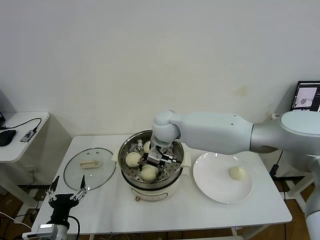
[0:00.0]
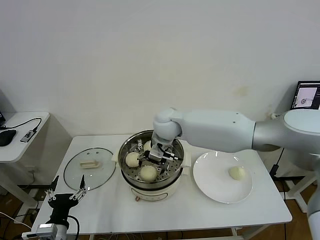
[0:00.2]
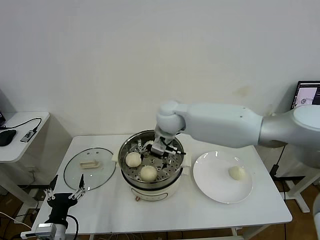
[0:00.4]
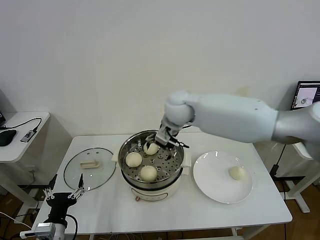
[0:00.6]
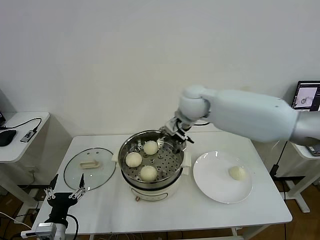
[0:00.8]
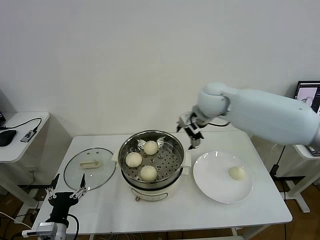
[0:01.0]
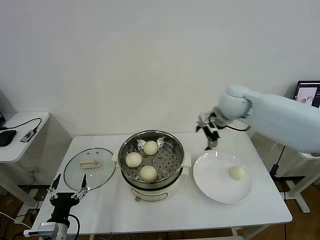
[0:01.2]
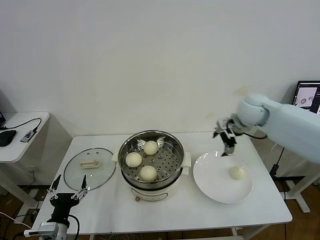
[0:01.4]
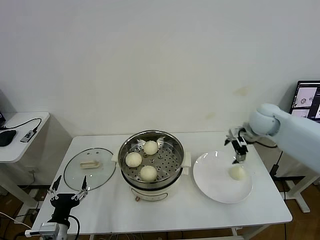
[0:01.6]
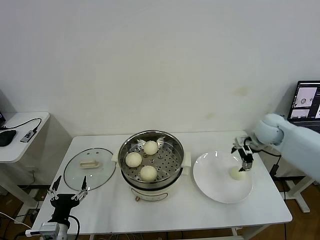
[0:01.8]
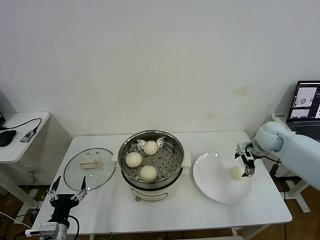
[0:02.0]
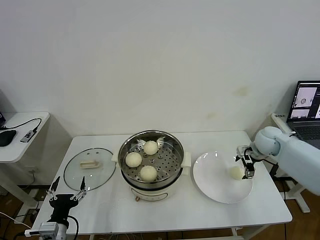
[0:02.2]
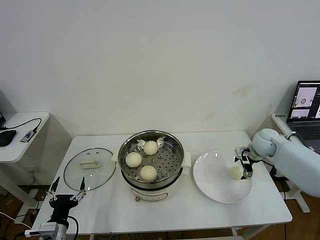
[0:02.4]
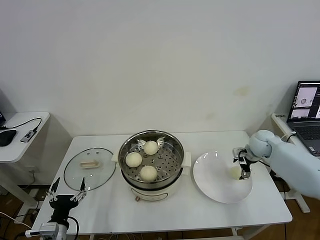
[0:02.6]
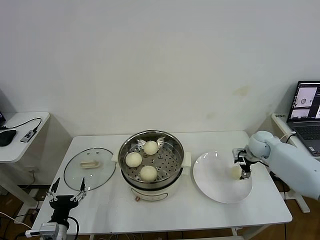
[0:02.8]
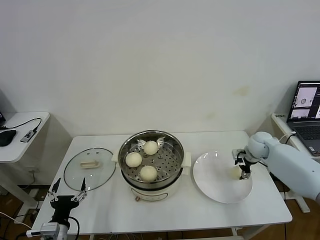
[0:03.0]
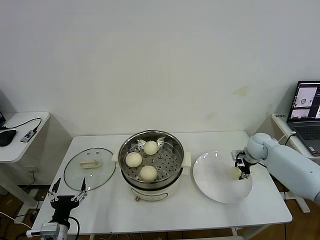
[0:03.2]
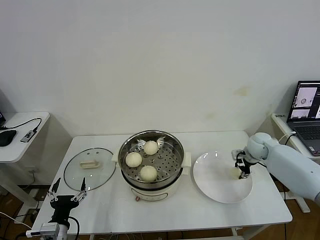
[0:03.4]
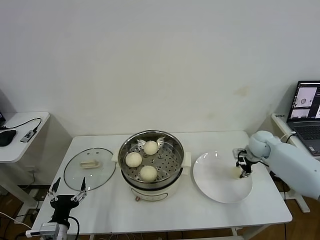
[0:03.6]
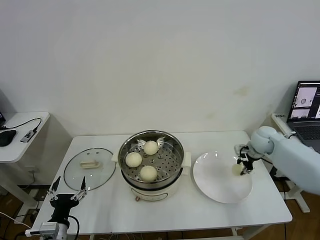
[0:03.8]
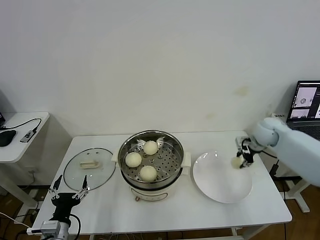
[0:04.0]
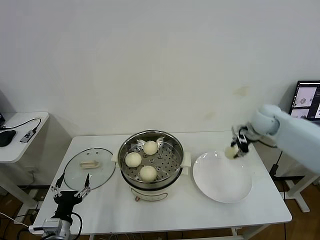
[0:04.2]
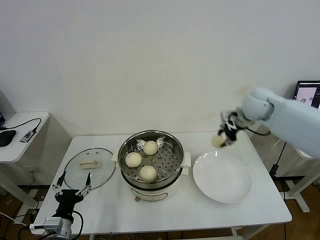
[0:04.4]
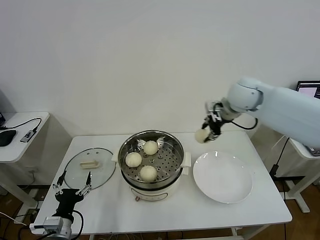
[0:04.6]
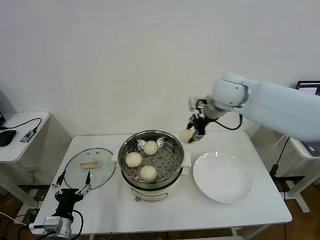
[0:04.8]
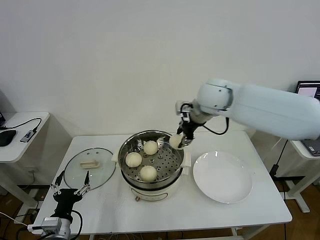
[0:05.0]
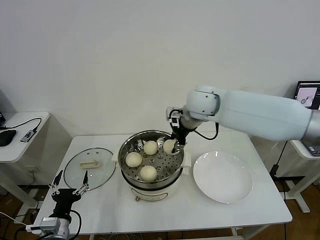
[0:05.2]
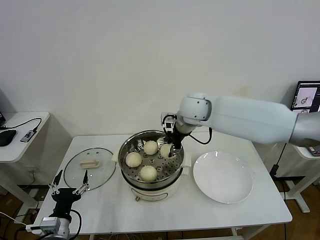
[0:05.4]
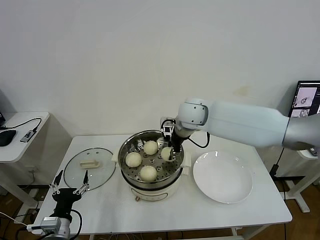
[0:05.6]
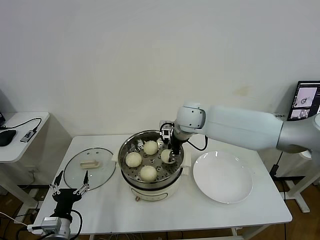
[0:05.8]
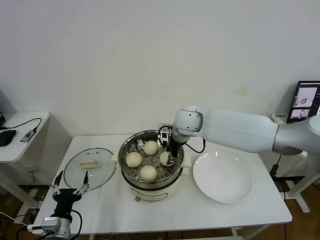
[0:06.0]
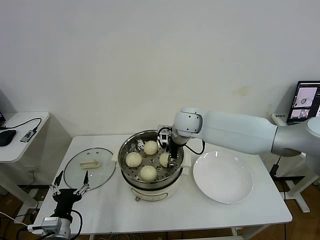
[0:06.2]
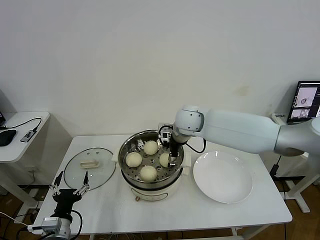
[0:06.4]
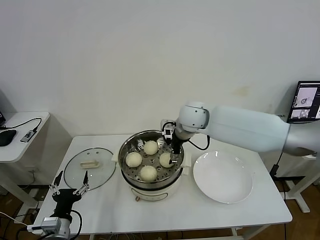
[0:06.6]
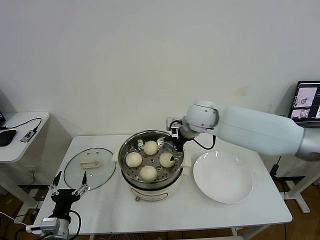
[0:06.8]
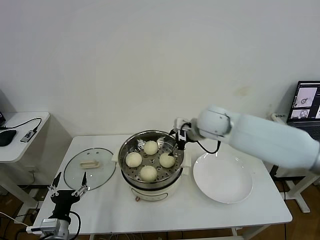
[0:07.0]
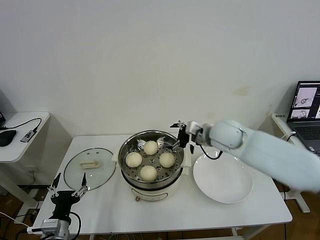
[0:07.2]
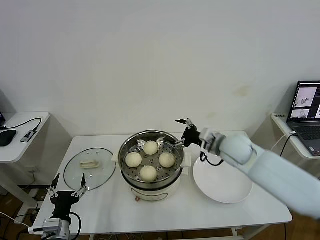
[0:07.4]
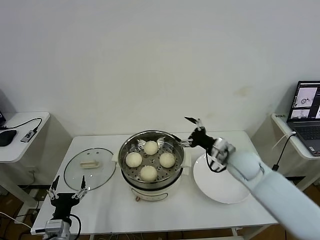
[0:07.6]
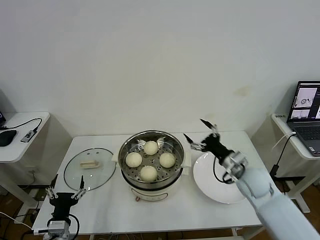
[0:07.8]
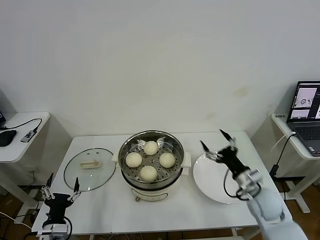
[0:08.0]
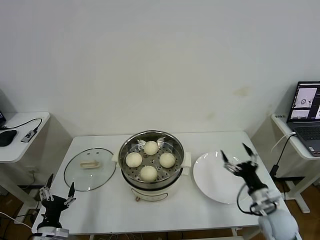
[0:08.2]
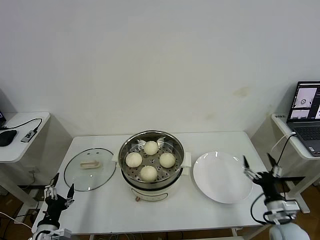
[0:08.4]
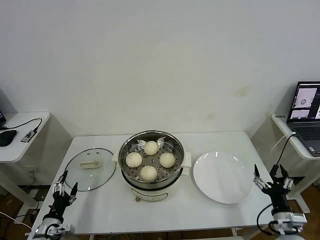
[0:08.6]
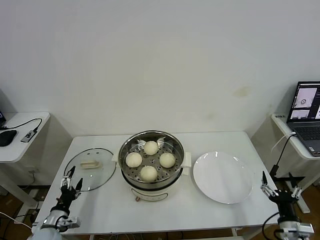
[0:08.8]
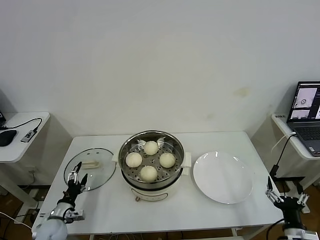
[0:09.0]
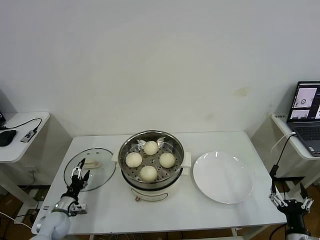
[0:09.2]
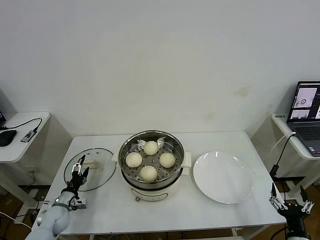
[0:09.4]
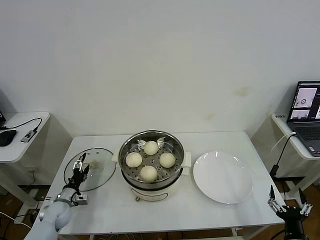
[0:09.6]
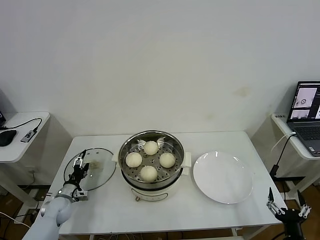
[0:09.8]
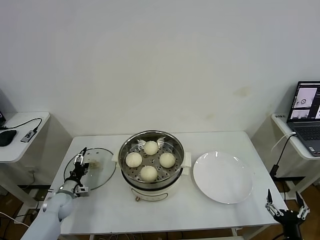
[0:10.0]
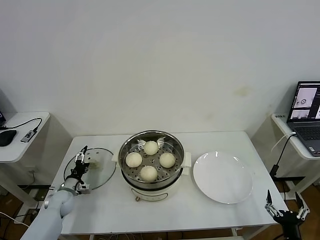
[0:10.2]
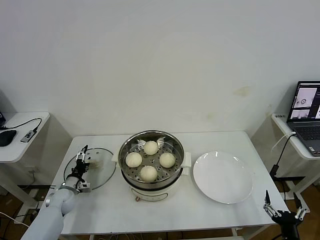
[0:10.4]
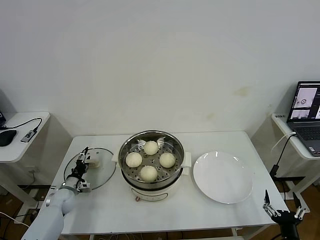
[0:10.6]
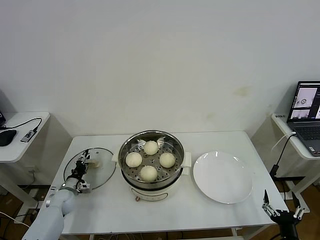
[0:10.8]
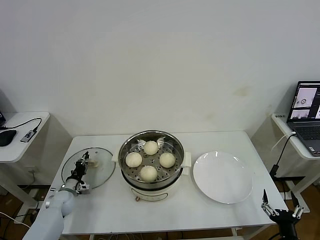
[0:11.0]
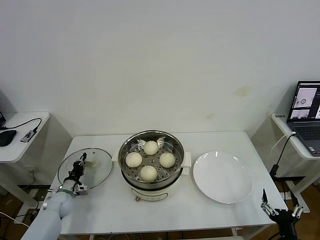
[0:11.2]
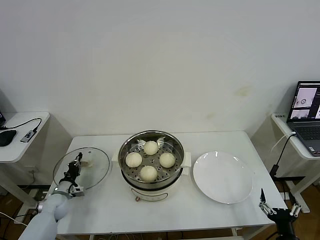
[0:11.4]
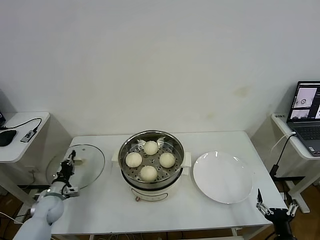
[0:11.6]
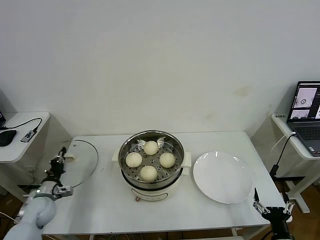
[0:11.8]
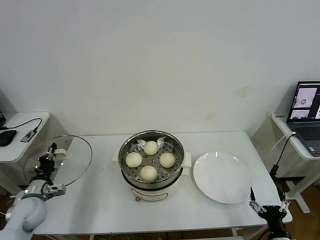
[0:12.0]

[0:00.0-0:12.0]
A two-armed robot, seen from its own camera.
Task of the whole recording: take steamed baozi put them in steamer then cover it.
Step, 0:00.6 to 0:03.6: Grasp the baozi in the plate with right gripper.
Step, 0:04.0 to 0:06.6: Place the baozi on the steamer with right gripper.
Step, 0:06.8 to 0:11.2: Grasp the pot lid with left gripper.
0:00.0 to 0:01.6: The right gripper goes some 35 cm to the right.
0:01.6 to 0:03.0: The right gripper travels downward by approximately 15 cm.
0:03.0 to 0:04.4: The right gripper moves upward and to the left, roughly 20 cm, and closes its fingers.
0:04.4 to 0:06.0: The right gripper shifts about 20 cm to the left.
0:06.0 to 0:07.6: The right gripper heads to the right, backward and downward, covering some 25 cm, and opens its fingers.
0:07.6 to 0:09.0: The right gripper shifts approximately 30 cm backward, downward and to the right; the left gripper travels forward, downward and to the left by some 15 cm.
0:09.0 to 0:10.4: The left gripper travels forward by roughly 15 cm.
0:10.4 to 0:12.0: The left gripper is displaced upward and backward by about 15 cm, and closes its fingers.

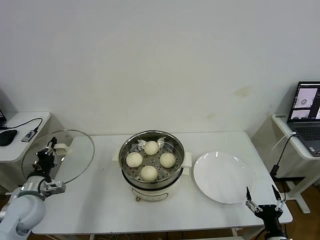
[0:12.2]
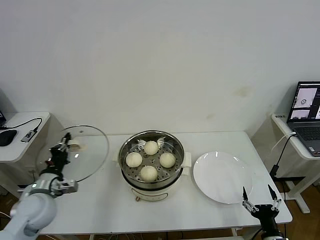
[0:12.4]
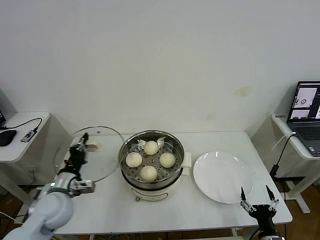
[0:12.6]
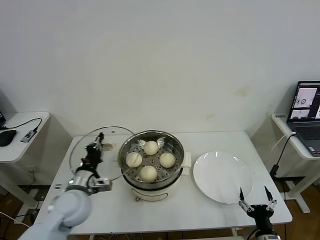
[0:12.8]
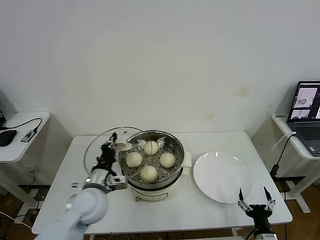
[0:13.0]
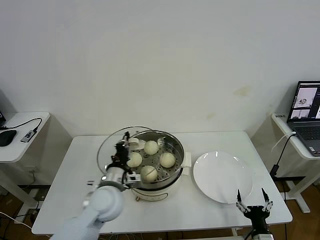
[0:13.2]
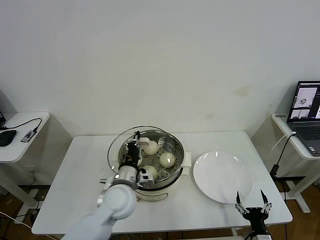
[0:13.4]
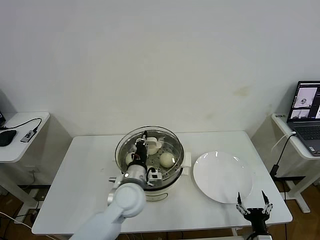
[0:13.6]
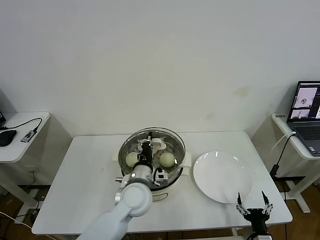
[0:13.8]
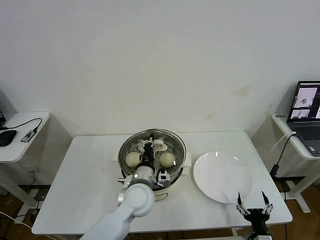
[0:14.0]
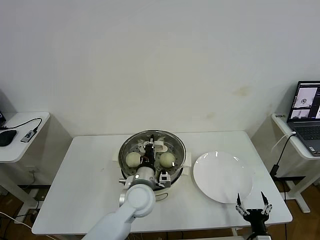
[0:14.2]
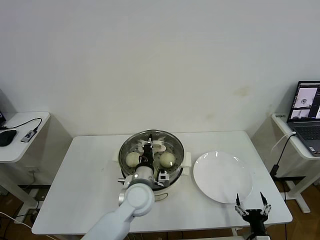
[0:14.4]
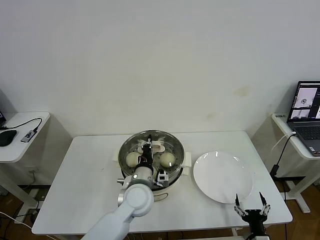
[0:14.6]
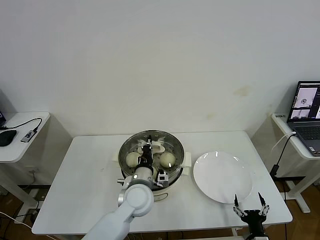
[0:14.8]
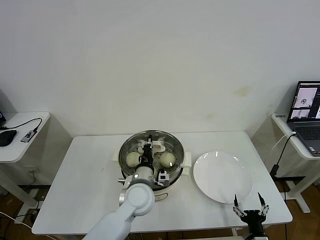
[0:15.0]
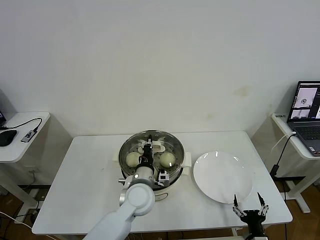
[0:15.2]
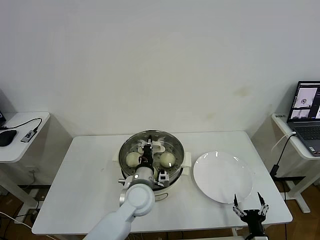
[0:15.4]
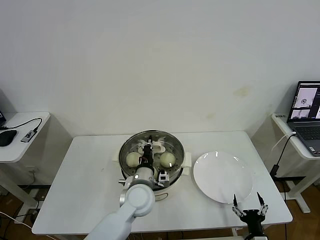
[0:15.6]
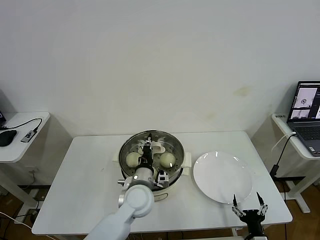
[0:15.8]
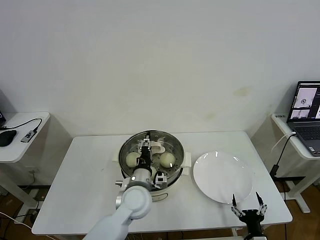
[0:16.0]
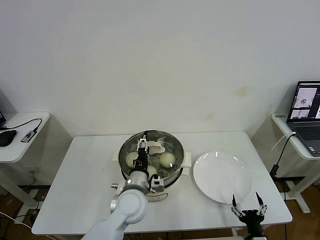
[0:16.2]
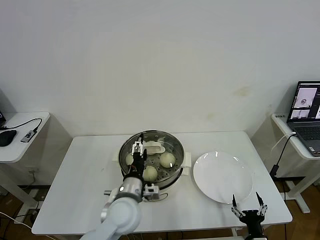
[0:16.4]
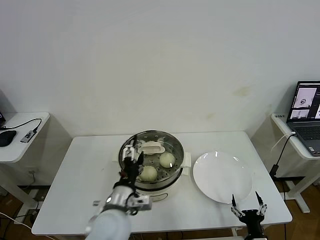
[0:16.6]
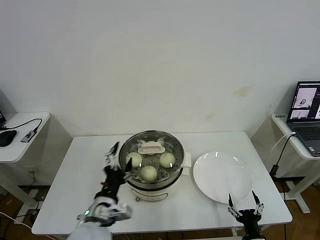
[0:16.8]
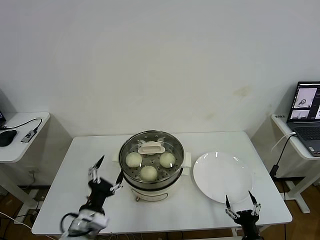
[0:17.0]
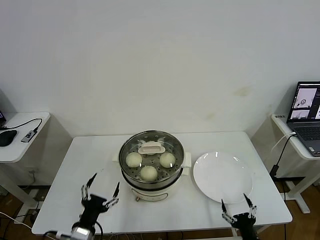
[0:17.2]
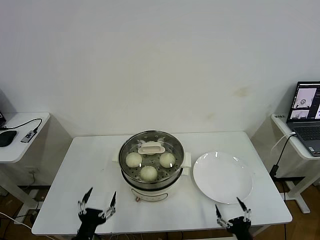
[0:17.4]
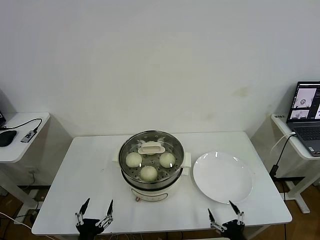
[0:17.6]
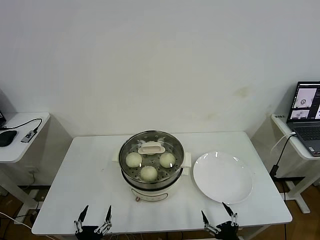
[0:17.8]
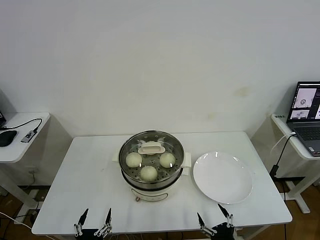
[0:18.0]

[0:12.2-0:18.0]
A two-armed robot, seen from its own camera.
Task of the whole recording: take steamed baozi put them in steamer then cover it.
Step, 0:12.2 to 0:16.4: Place the pot lid on the steamer with left gripper.
0:12.2 to 0:13.6: The left gripper travels to the right by some 30 cm. Meanwhile the right gripper changes place by approximately 5 cm.
0:13.6 to 0:15.0: There are only small adjustments of the grippers.
0:15.0 to 0:16.6: The left gripper is displaced backward by about 10 cm, and opens up.
0:16.6 to 0:18.0: The right gripper moves to the left, some 5 cm, while the left gripper heads backward, downward and to the left, covering approximately 25 cm.

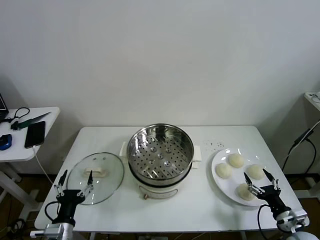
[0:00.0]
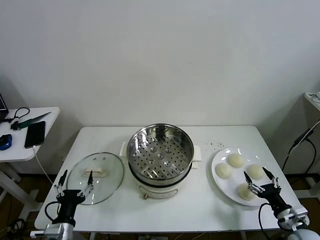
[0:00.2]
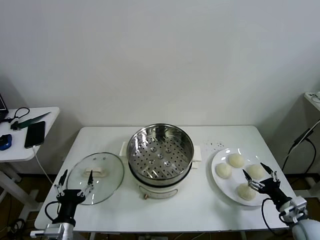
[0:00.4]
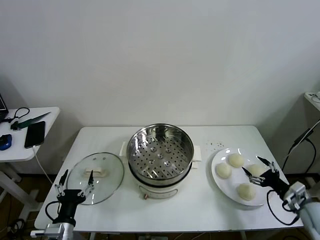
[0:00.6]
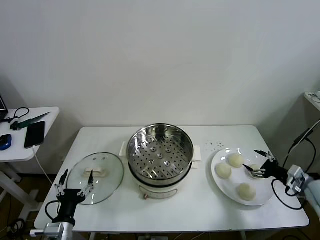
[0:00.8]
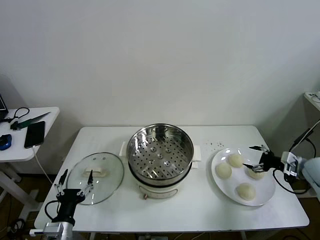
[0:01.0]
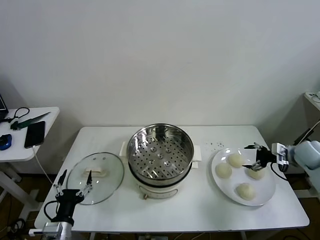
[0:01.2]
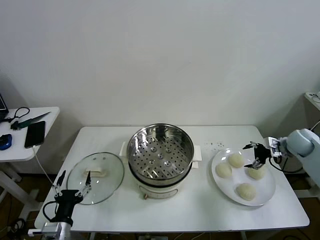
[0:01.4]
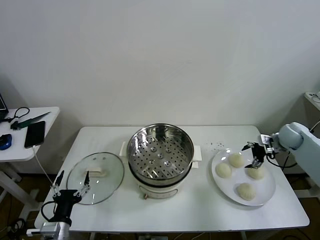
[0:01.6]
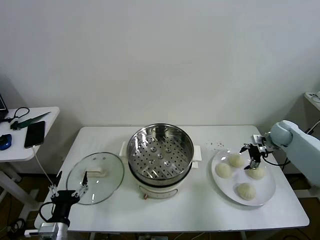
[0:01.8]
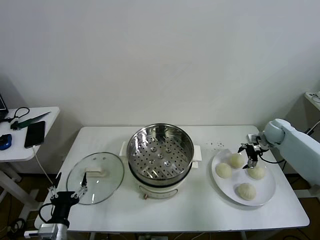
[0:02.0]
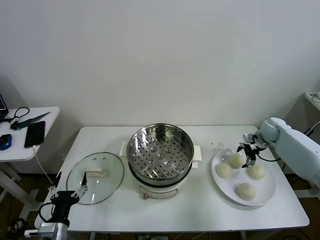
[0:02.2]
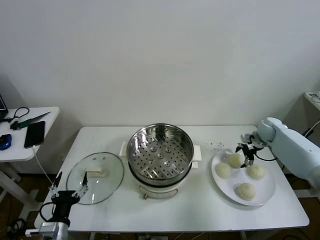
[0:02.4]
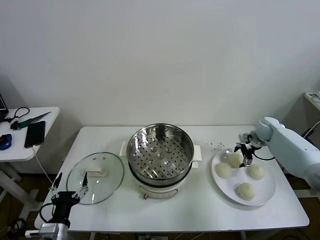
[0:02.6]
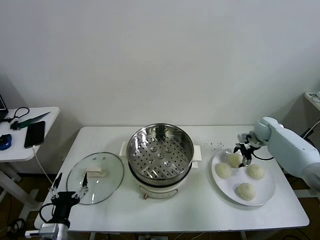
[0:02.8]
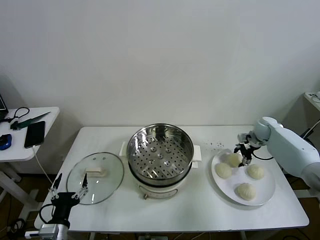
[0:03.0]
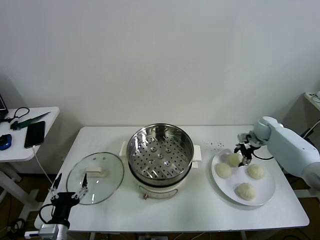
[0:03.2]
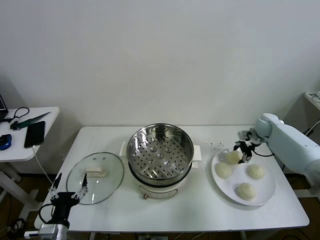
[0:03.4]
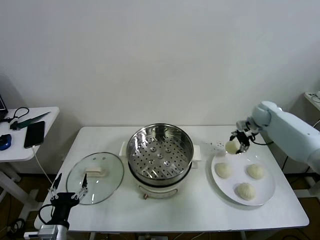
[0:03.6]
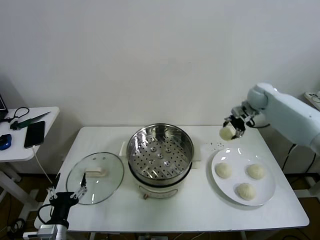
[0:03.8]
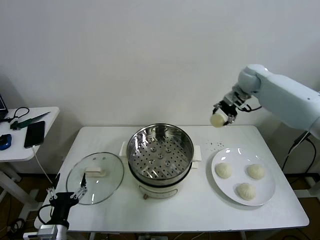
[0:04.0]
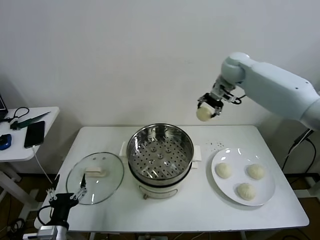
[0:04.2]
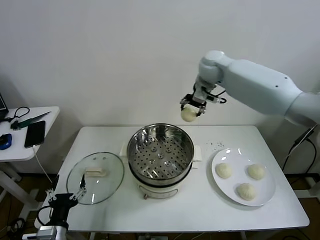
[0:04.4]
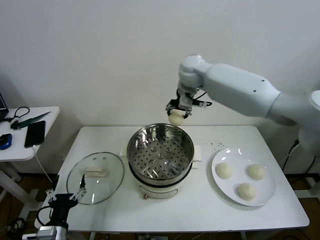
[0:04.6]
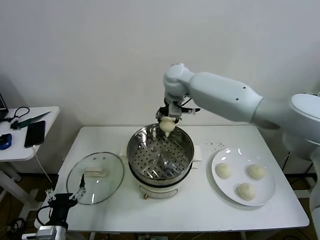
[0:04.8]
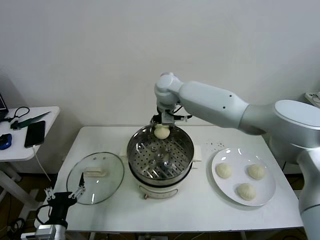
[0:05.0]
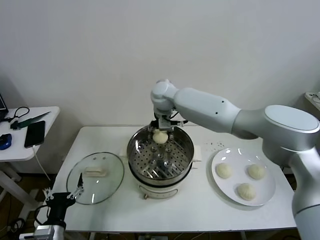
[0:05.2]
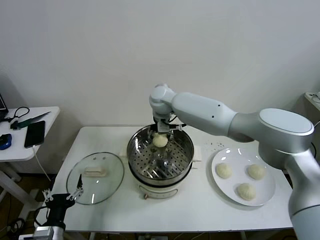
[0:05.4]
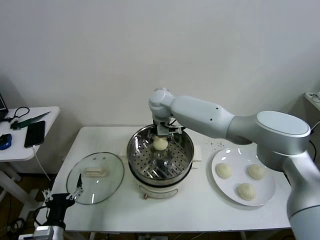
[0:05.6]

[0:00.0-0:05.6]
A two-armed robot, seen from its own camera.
Task of the whole recording: take steamed baozi put them in steamer then cover it.
Step, 0:00.0 to 0:03.0: Grasp the baozi in the plate with right gripper.
0:01.4 to 0:02.8: The right gripper travels forward and to the left by some 10 cm, and closes up.
0:02.8 to 0:04.2: The right gripper moves upward and to the left, roughly 35 cm.
0:04.2 to 0:05.6: The right gripper is displaced to the left and downward by about 25 cm, and opens.
